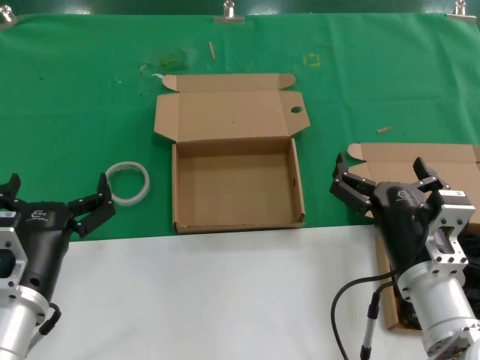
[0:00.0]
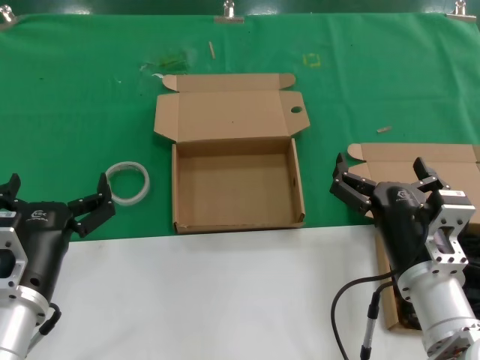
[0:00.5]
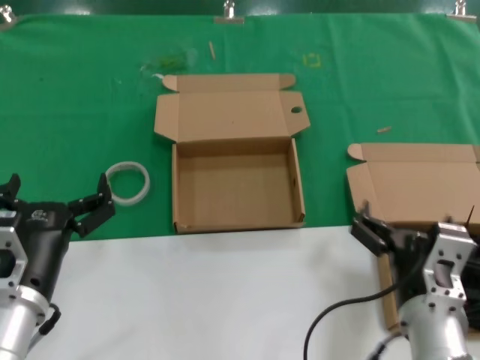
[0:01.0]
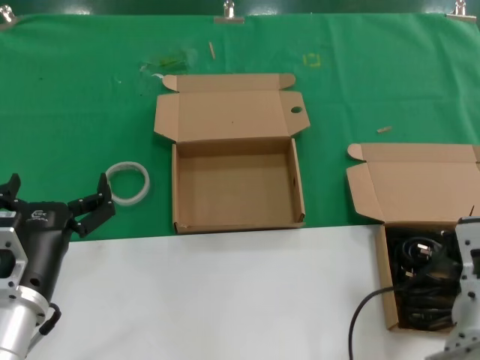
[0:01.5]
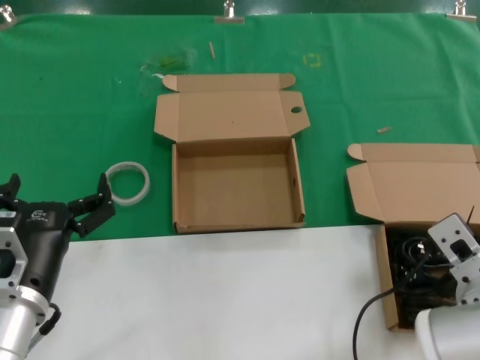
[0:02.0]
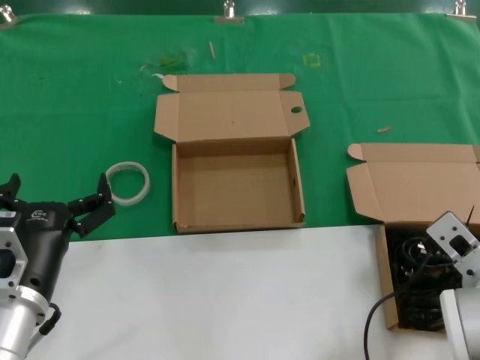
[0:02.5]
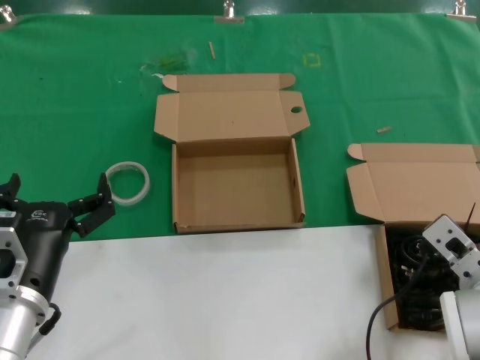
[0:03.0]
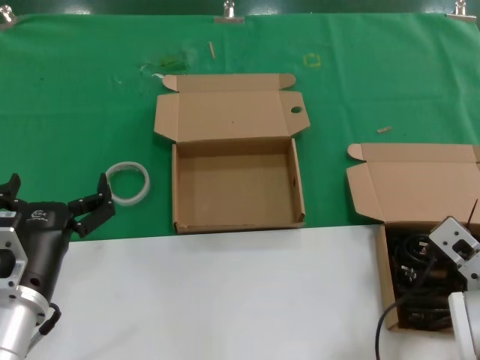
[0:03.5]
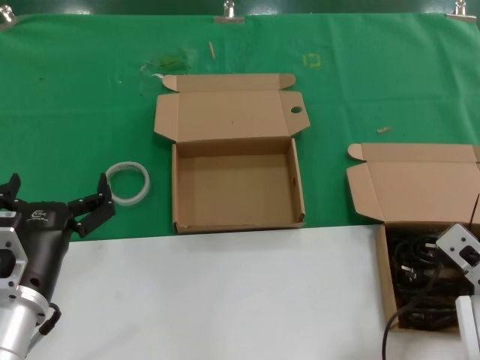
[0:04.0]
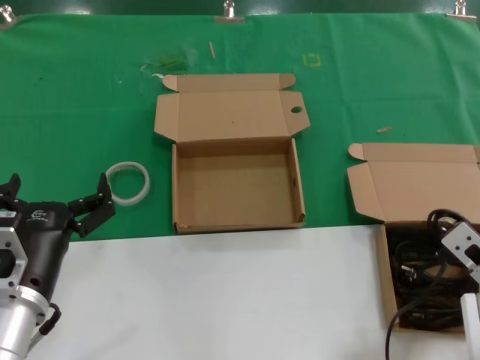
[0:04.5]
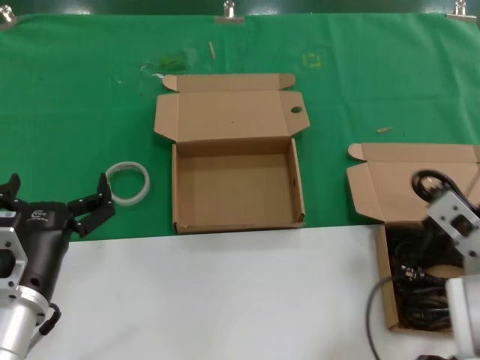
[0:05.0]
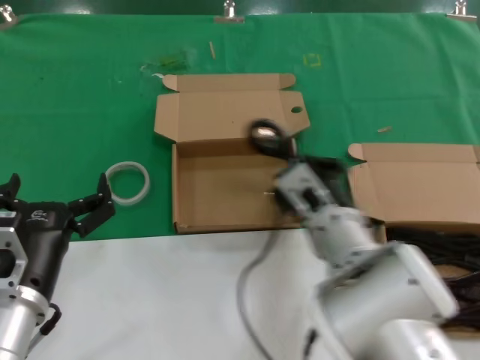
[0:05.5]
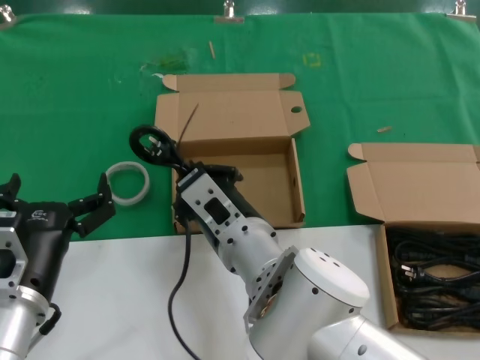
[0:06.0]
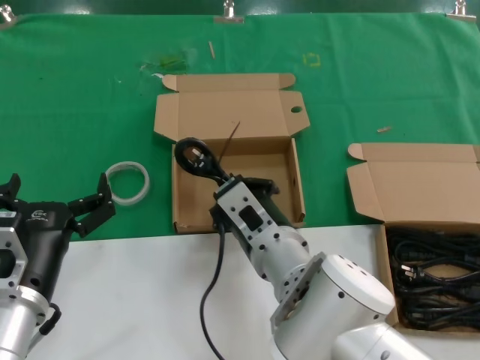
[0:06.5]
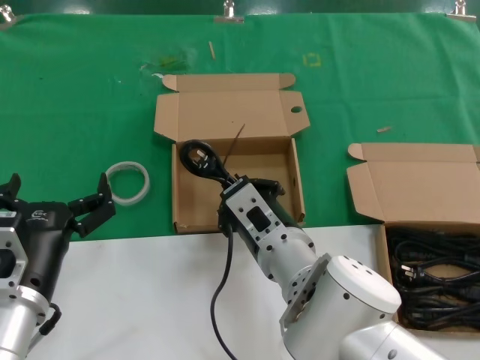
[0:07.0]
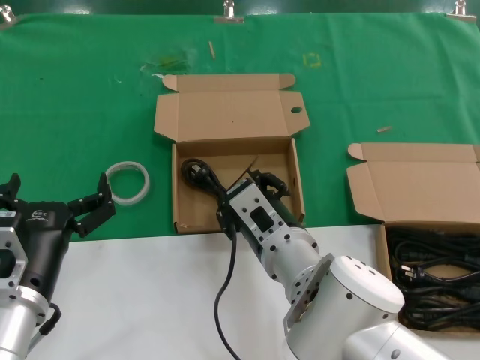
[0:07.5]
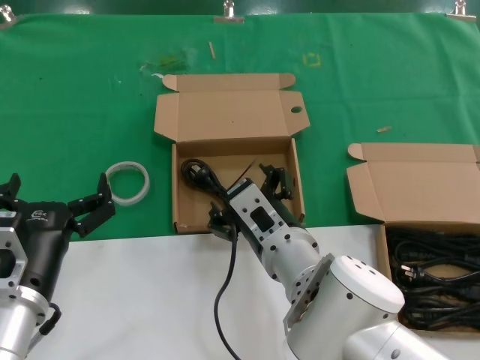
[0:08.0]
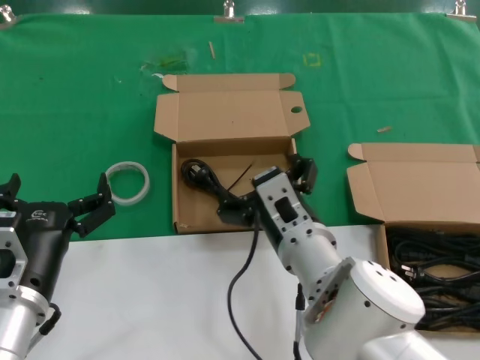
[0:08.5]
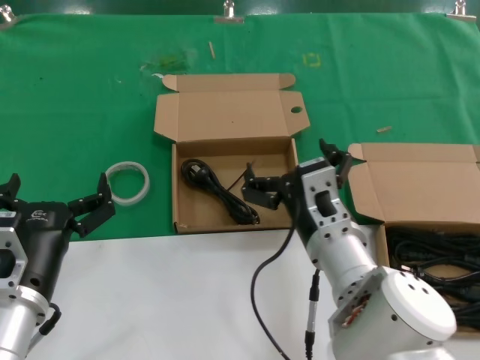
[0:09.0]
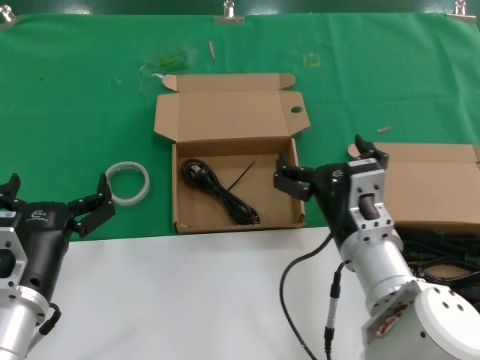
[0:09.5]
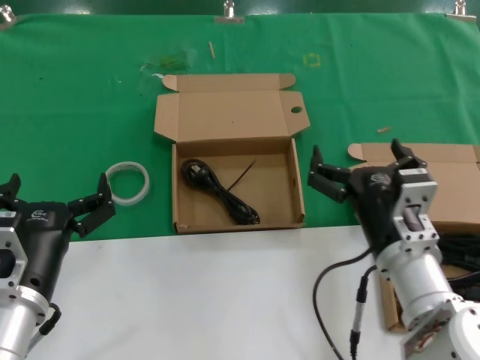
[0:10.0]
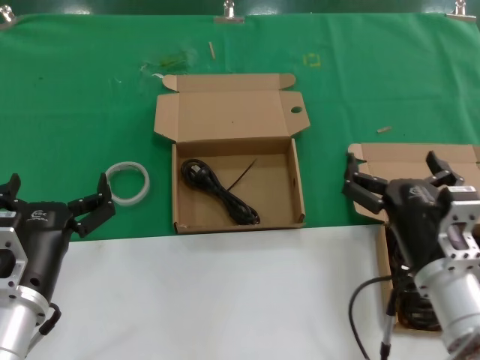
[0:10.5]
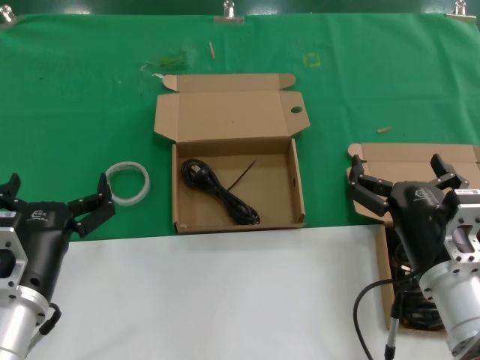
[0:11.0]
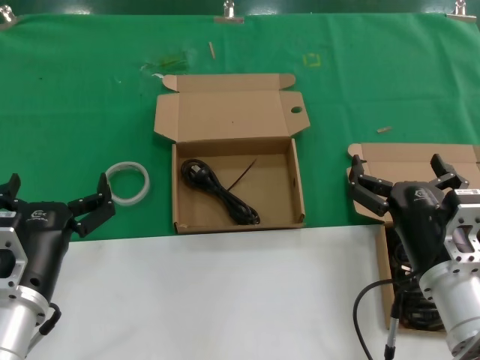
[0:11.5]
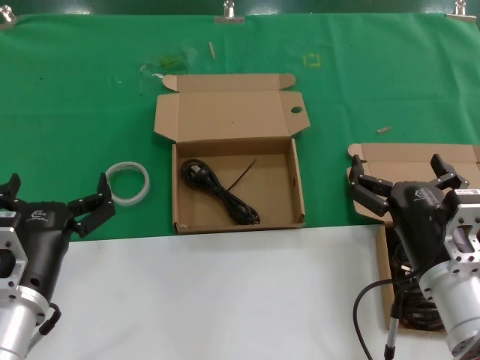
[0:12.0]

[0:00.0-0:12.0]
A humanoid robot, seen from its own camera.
Task of the whole recording: take the parts from the box containing them and put them into an empty box.
Step, 0:00.0 to 0:04.0: Grasp the data cable.
Step, 0:04.5 to 0:08.0: Place the data cable in the another box.
0:02.0 to 0:04.0: The right hand is displaced to the right by approximately 5 cm.
0:04.0 to 0:06.0: The right hand shifts roughly 25 cm to the left.
0:06.0 to 0:08.0: The right hand shifts by approximately 5 cm.
0:08.0 to 0:10.0: The right hand is displaced to the right by approximately 10 cm.
0:10.0 to 0:12.0: The right hand moves about 5 cm.

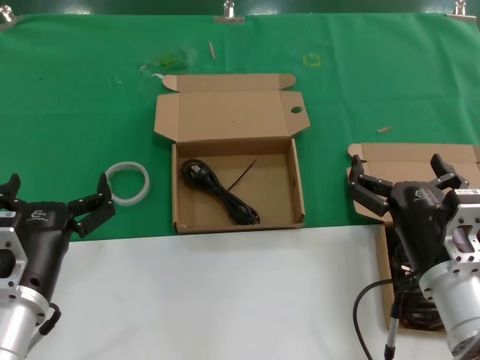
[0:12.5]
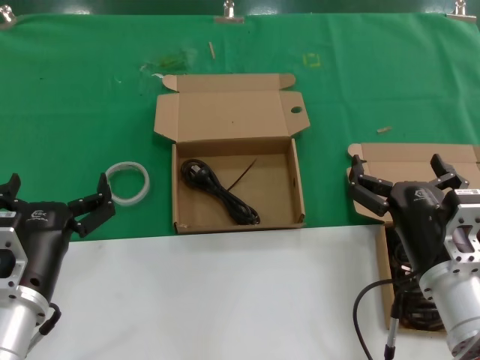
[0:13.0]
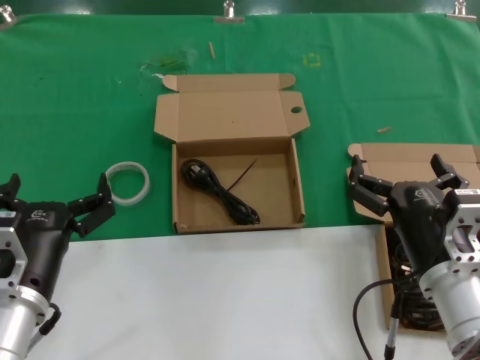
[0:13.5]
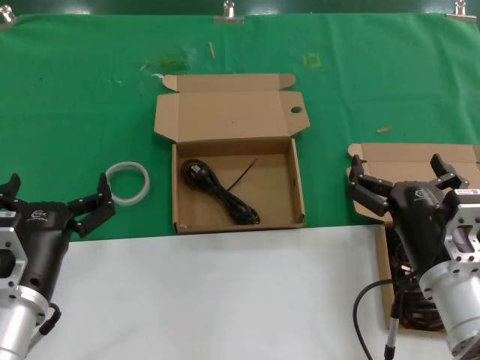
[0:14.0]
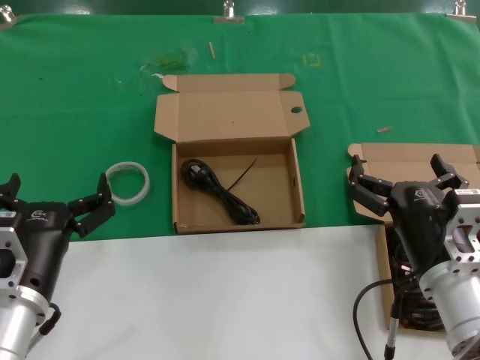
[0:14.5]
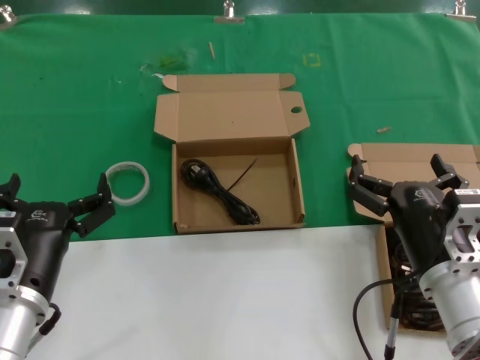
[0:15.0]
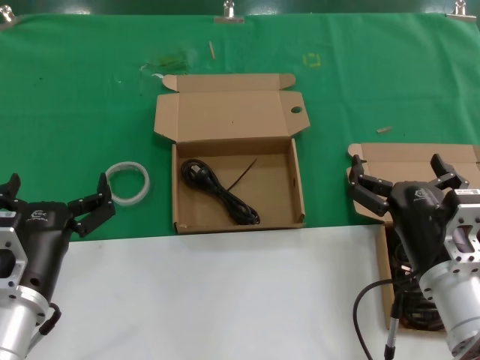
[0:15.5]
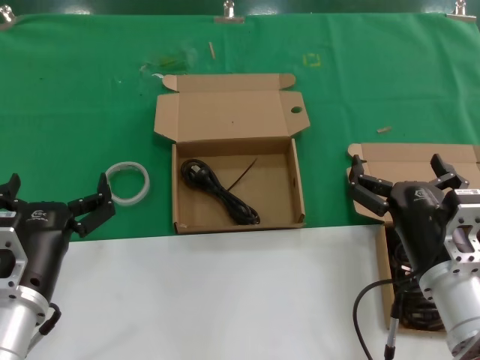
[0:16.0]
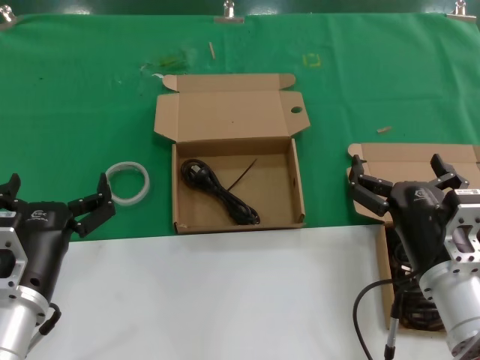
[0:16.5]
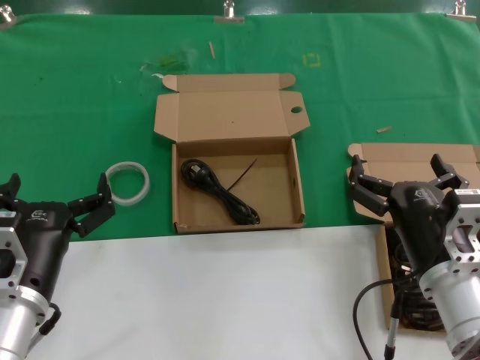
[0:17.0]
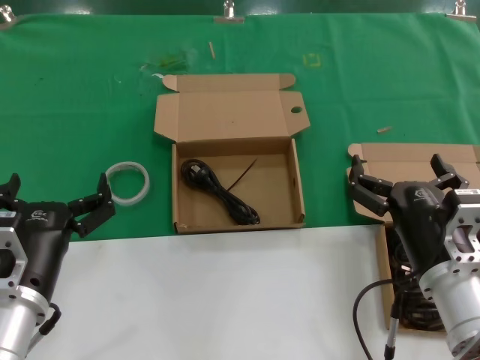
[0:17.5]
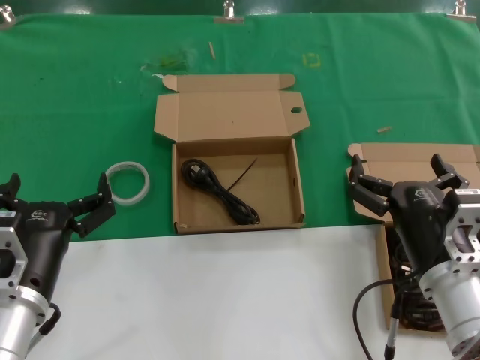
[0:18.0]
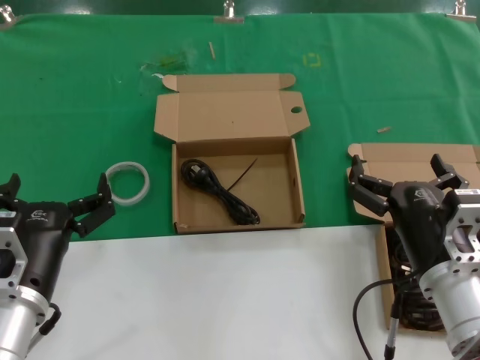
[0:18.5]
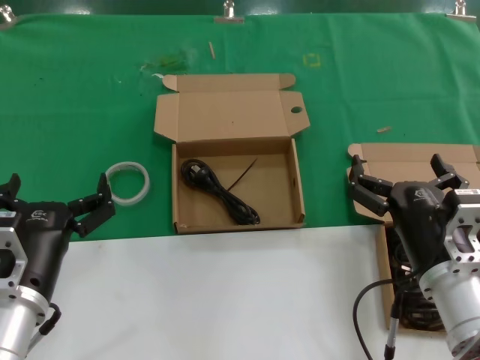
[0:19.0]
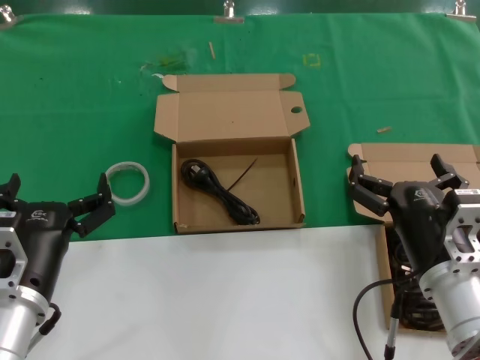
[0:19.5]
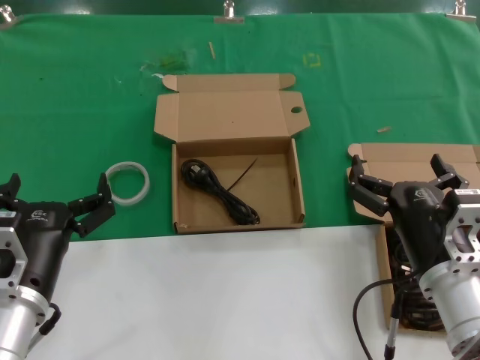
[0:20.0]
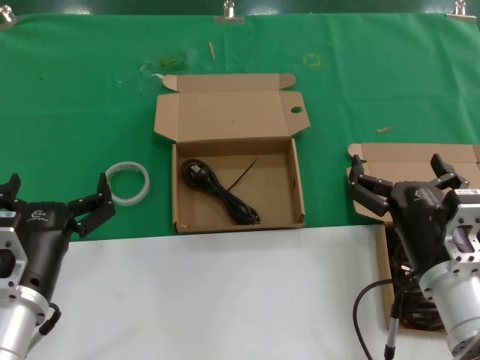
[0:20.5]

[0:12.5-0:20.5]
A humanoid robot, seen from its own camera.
Task of the whole recording: take the parts from the box containing them and put them into an empty box.
0:12.5 to 0:20.5: The two hands keep their place.
